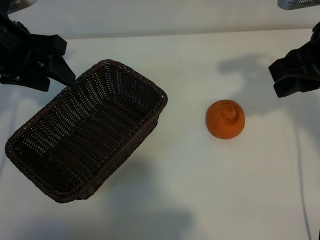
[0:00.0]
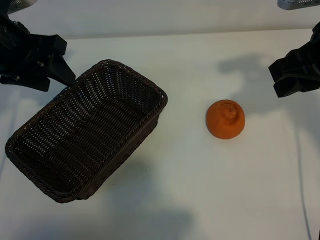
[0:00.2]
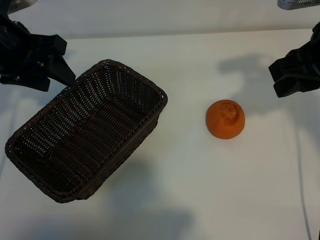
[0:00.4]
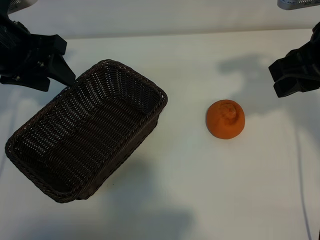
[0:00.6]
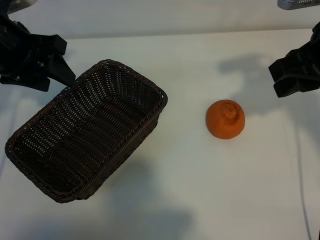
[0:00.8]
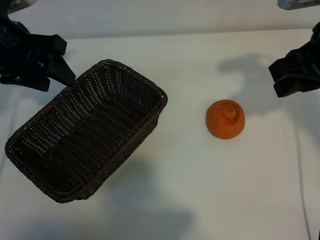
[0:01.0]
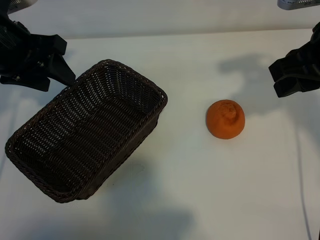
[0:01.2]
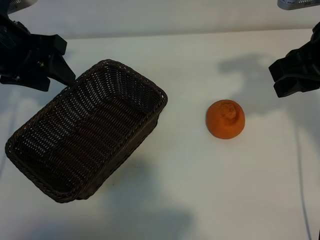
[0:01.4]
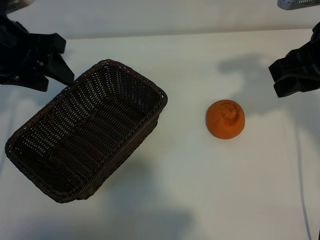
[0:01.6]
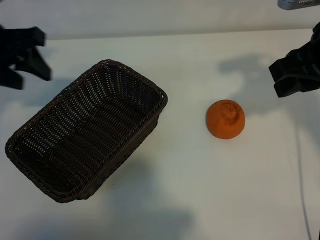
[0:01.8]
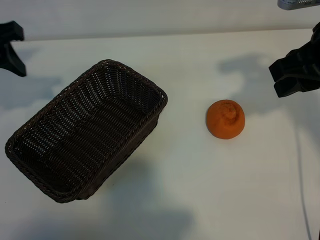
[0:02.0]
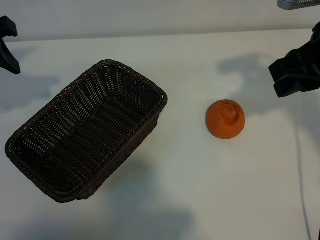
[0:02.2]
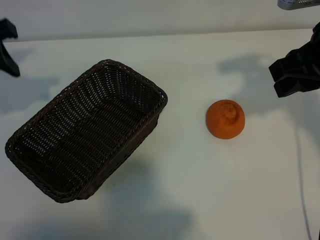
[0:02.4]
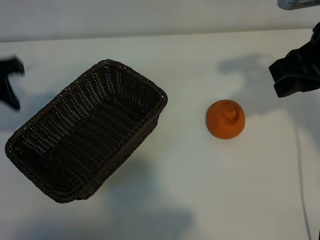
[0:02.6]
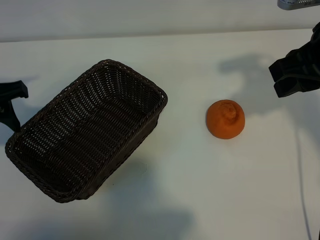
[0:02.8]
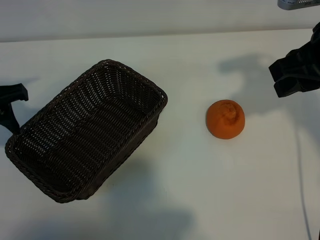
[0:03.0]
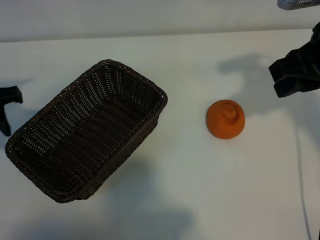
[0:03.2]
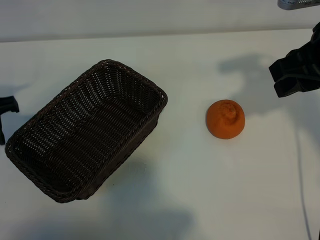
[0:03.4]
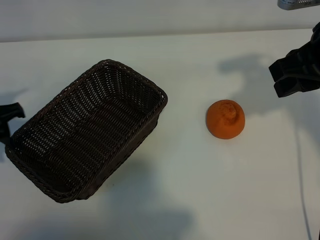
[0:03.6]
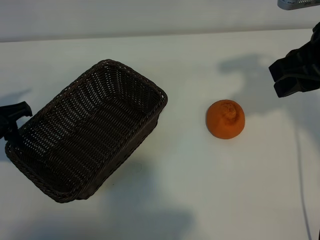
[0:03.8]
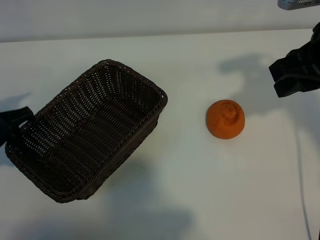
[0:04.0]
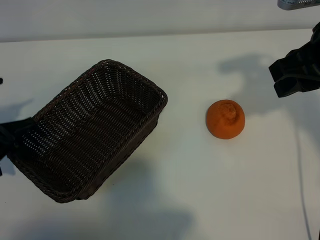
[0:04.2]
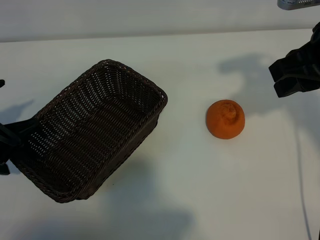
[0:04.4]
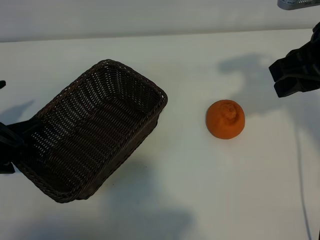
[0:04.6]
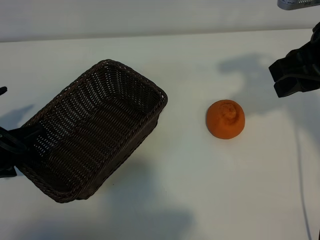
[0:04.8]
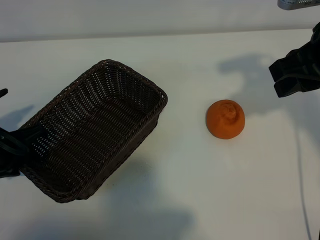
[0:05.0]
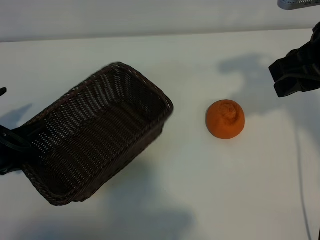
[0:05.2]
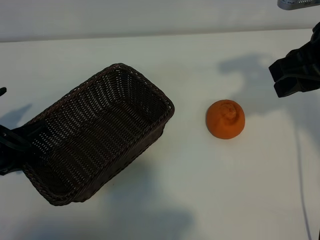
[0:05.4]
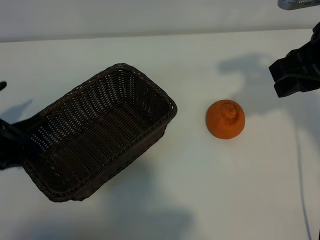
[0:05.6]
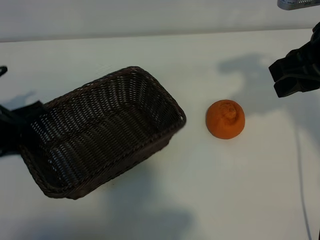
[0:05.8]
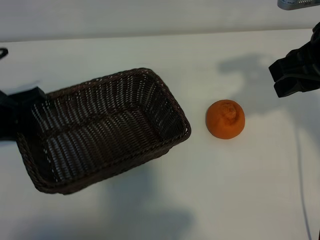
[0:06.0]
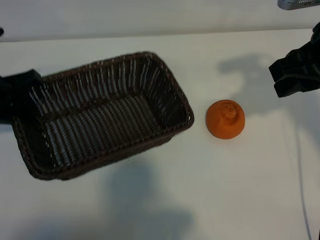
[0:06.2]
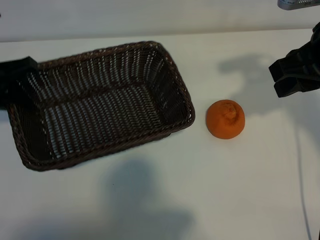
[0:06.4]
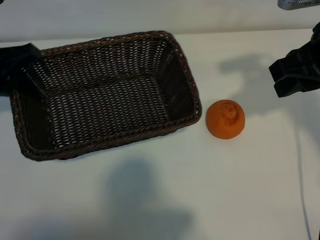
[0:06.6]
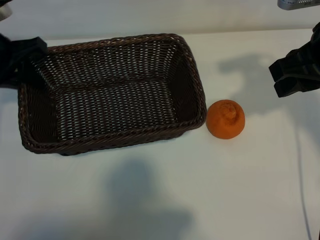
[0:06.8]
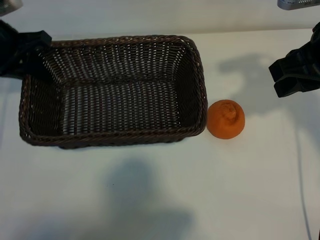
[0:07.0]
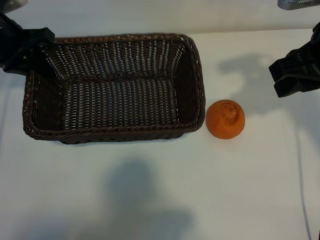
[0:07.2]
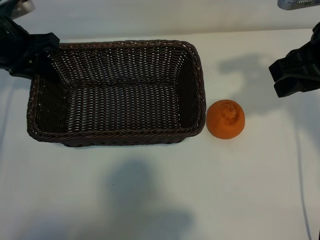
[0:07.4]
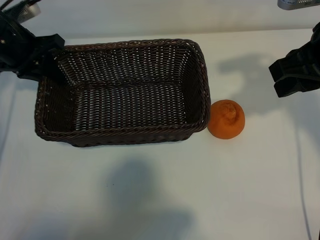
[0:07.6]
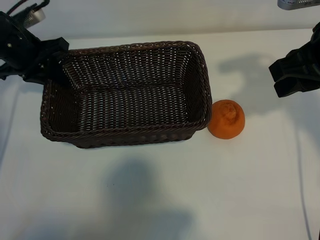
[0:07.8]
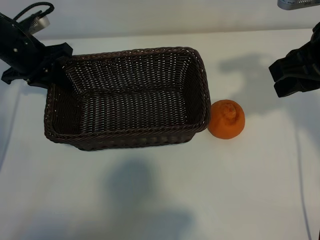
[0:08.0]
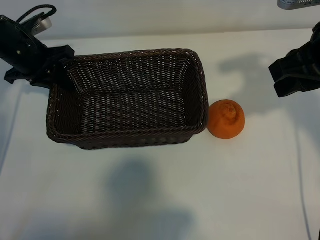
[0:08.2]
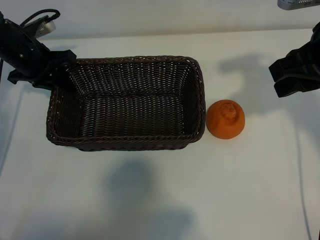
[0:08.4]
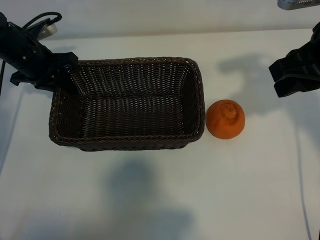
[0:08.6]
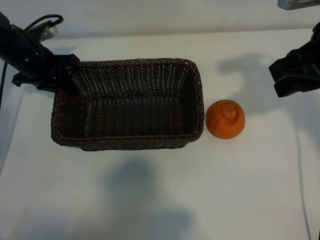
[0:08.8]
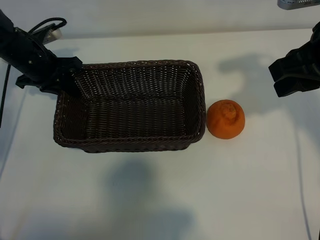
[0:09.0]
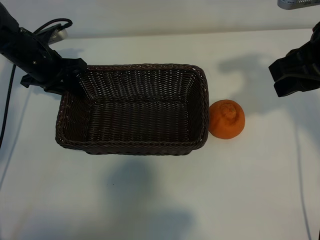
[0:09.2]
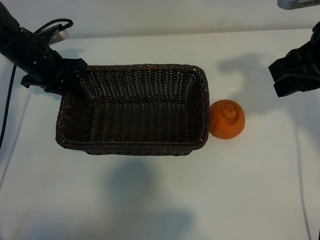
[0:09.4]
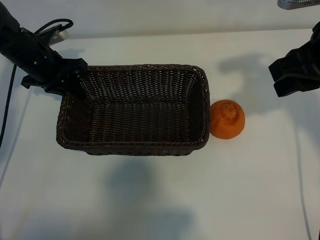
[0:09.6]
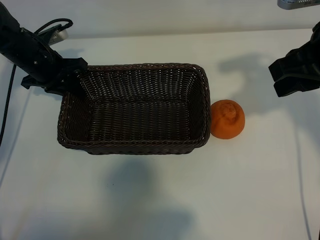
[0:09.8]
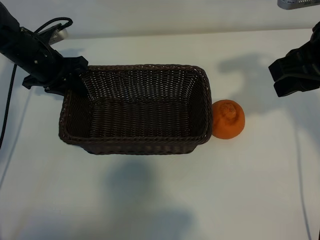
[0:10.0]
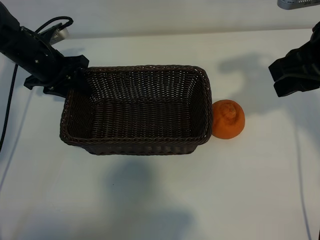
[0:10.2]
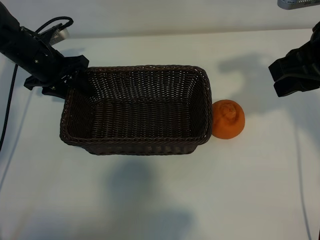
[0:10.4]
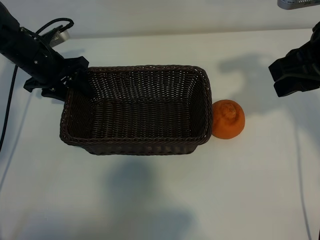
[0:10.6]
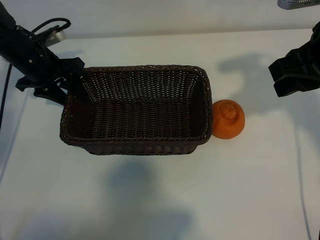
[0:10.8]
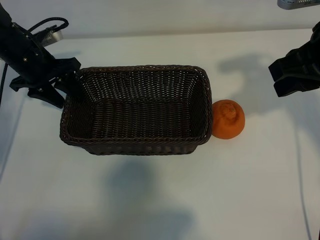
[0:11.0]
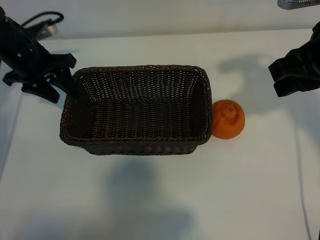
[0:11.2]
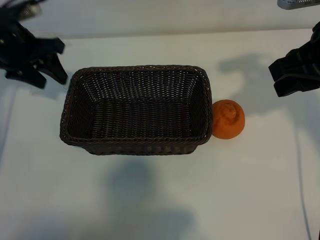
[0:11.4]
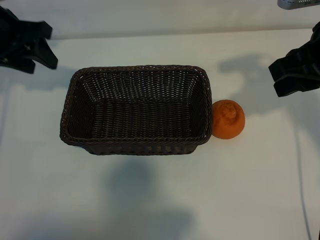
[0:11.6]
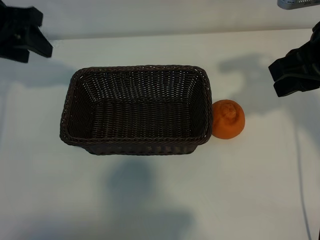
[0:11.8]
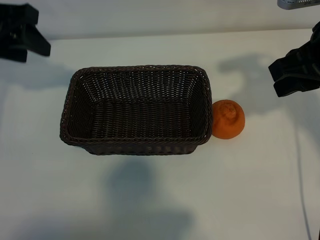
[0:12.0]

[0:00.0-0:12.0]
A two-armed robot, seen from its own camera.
Task of the whole recording: pick up the orange and put it into the basket.
Step, 0:01.6 to 0:05.2: Grasp the basket with left gripper.
Step, 0:05.4 to 0:10.0: Place the basket in the center of view with left gripper.

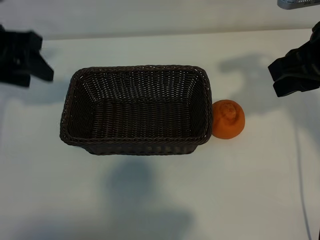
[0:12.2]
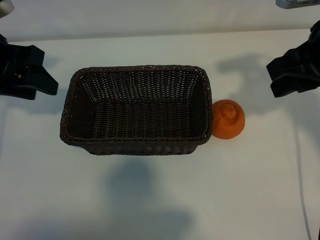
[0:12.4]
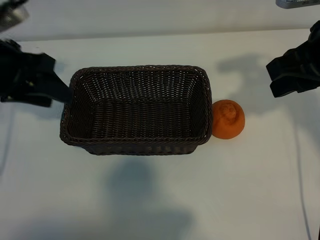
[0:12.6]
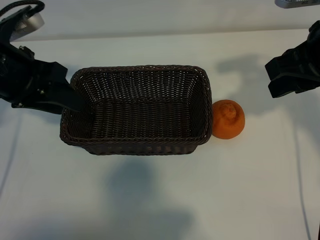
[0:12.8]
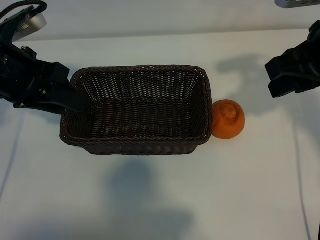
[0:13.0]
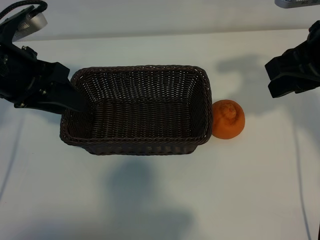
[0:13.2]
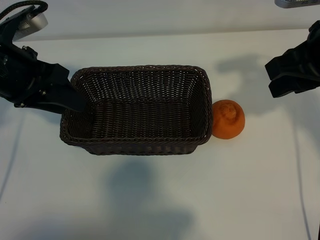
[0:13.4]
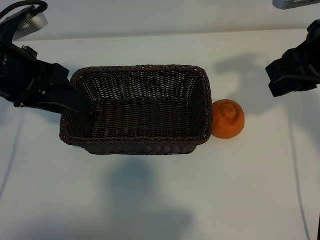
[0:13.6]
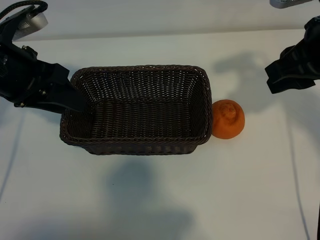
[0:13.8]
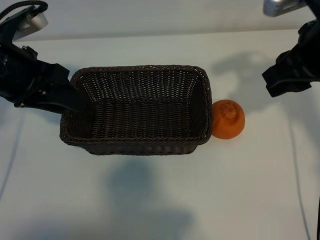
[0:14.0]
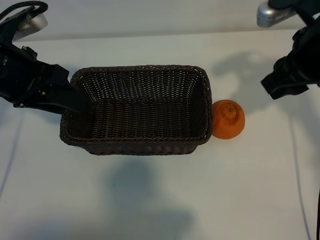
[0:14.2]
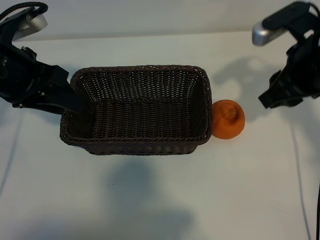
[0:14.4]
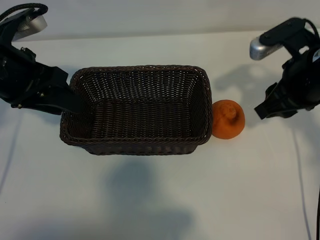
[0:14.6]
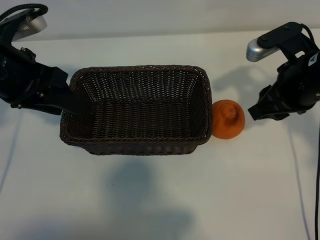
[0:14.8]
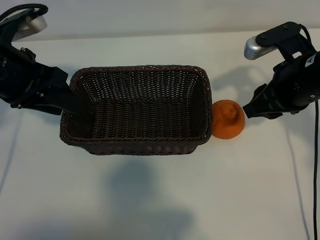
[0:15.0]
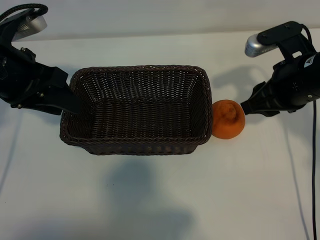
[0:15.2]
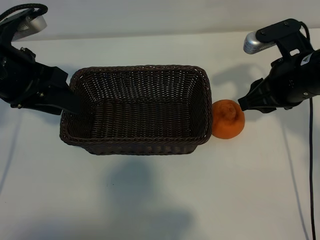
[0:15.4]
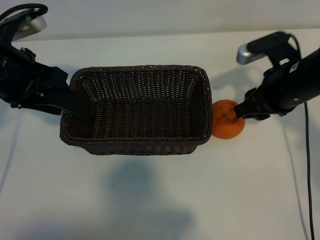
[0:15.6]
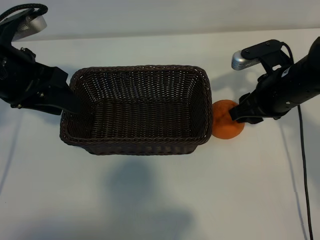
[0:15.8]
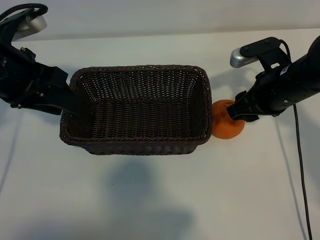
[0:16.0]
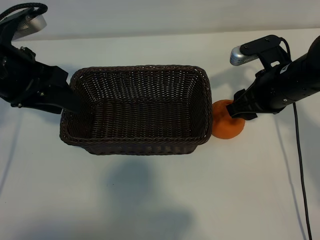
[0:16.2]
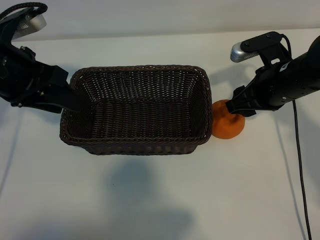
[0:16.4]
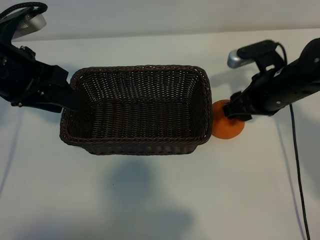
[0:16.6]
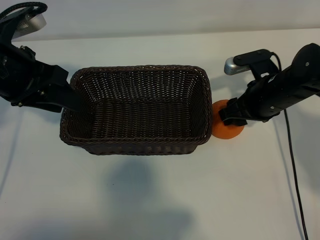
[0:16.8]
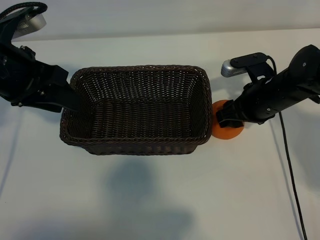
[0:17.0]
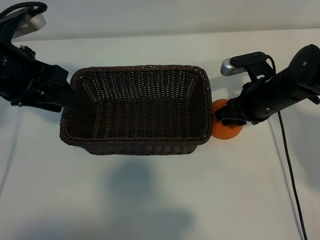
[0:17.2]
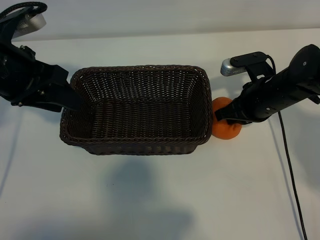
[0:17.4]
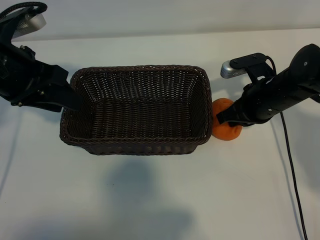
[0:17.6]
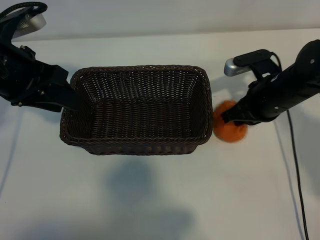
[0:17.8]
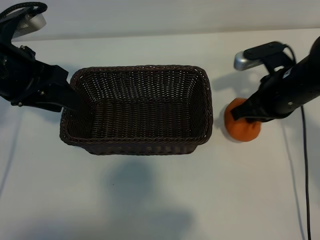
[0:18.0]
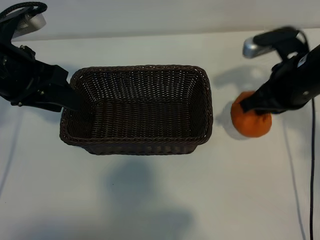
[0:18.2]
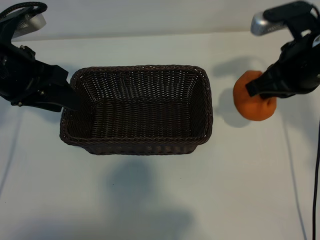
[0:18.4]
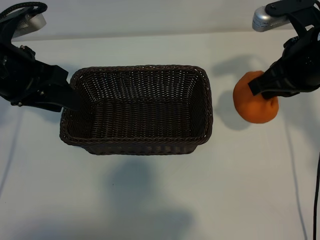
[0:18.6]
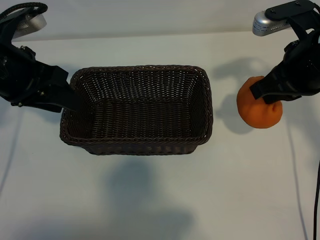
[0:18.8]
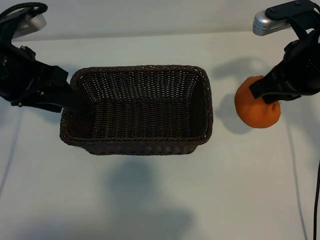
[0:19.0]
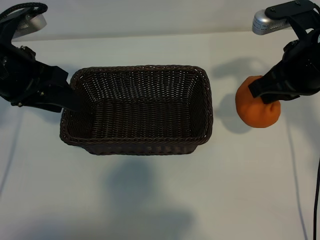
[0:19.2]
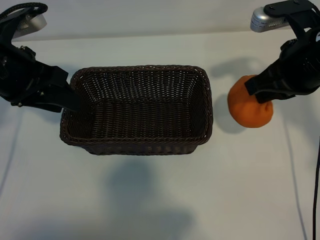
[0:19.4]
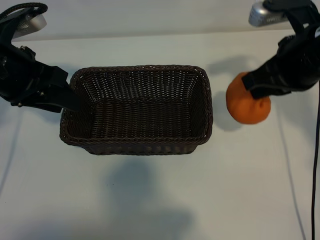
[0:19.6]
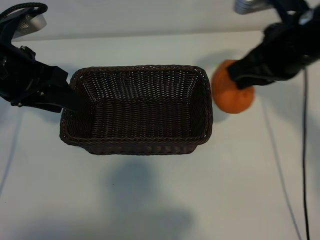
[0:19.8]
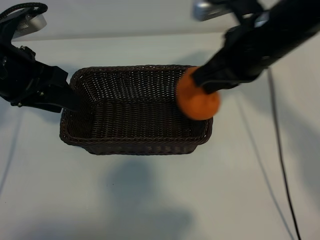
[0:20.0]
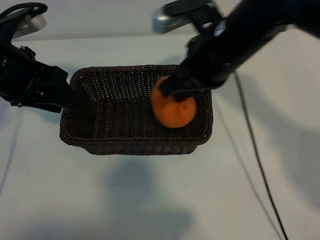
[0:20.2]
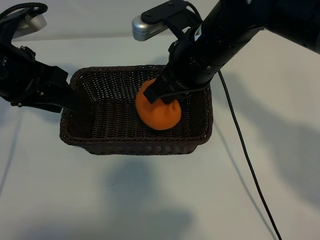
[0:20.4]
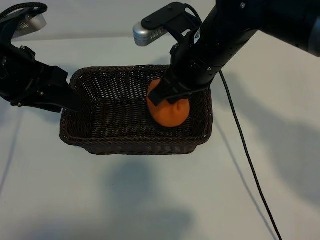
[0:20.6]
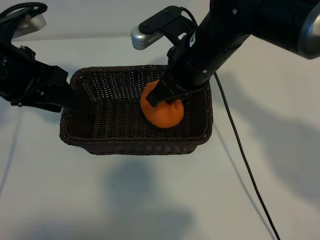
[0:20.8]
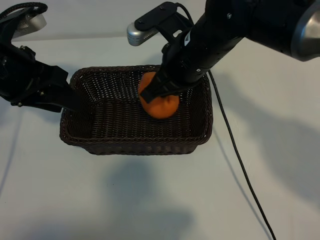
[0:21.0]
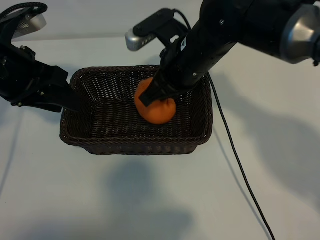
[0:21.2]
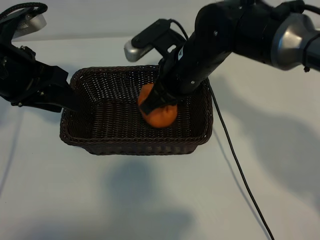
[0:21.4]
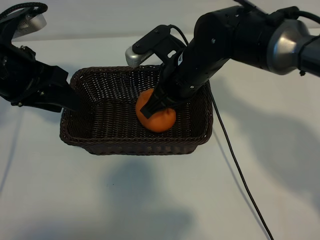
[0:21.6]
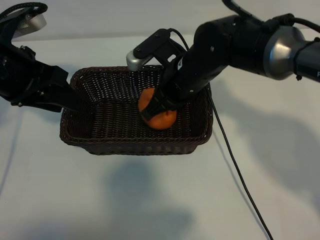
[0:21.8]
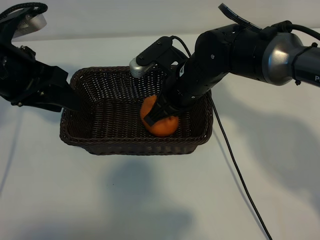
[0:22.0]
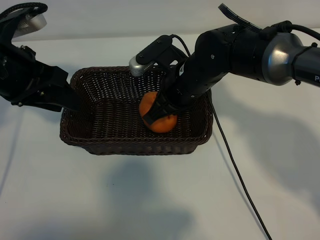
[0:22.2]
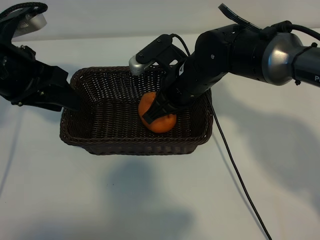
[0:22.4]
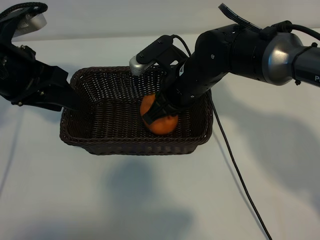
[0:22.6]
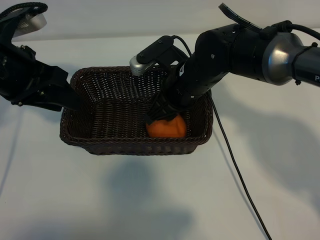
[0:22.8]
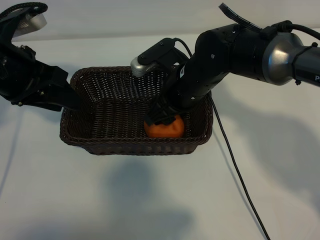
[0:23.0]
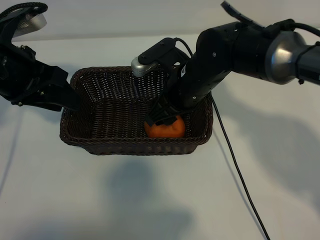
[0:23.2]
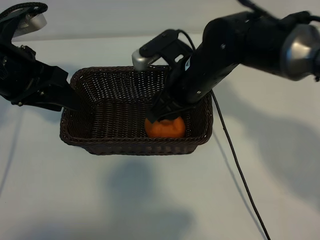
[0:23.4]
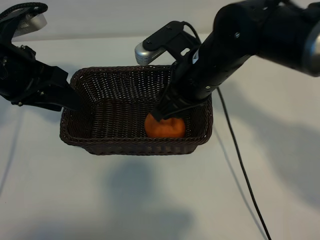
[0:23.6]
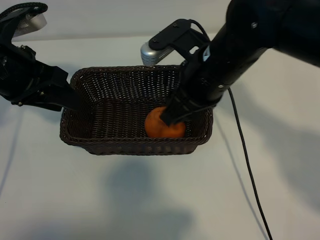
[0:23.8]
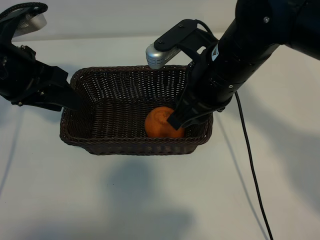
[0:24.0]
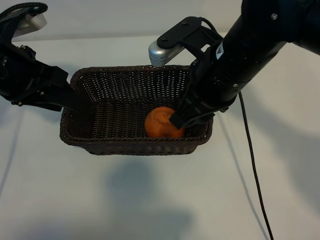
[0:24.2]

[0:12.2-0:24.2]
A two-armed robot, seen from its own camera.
Task of the whole recording: pick up the orange and put it into the basket.
Step, 0:12.2 to 0:17.4: Grasp the orange with right gripper.
Step, 0:17.6 to 0:22.8: Place the orange in the basket with right gripper.
